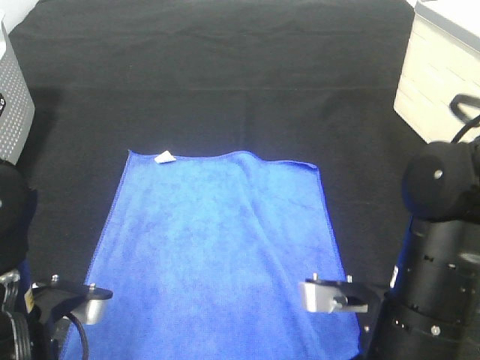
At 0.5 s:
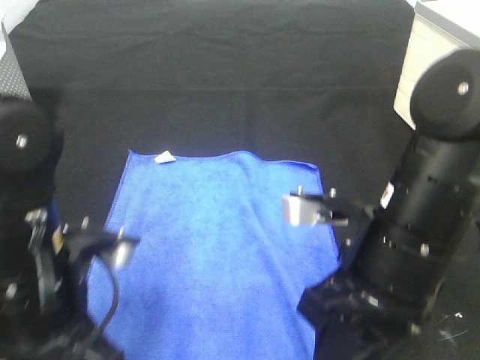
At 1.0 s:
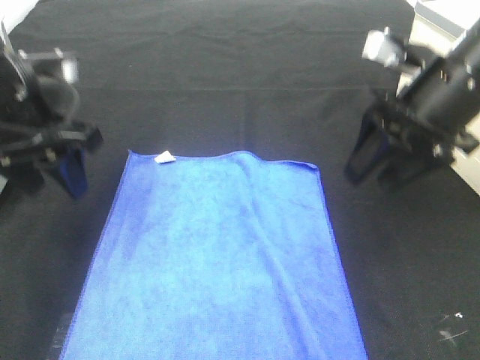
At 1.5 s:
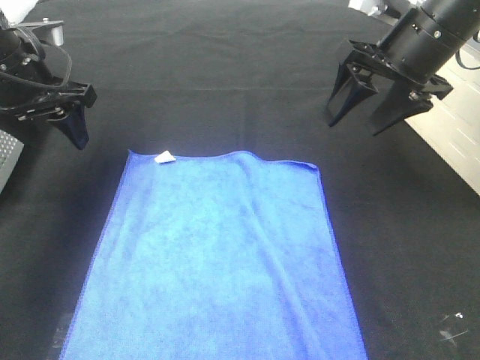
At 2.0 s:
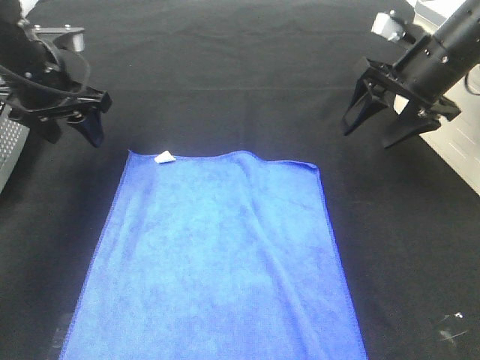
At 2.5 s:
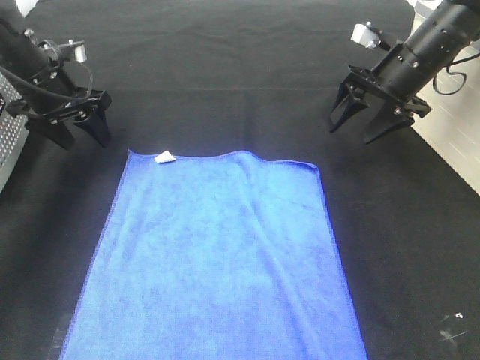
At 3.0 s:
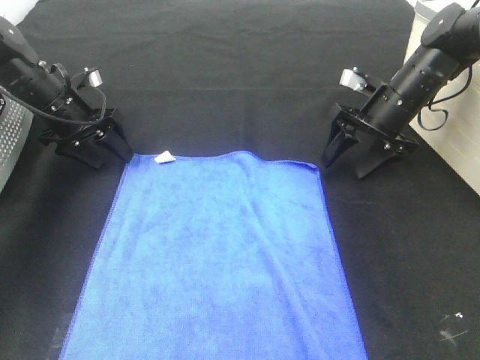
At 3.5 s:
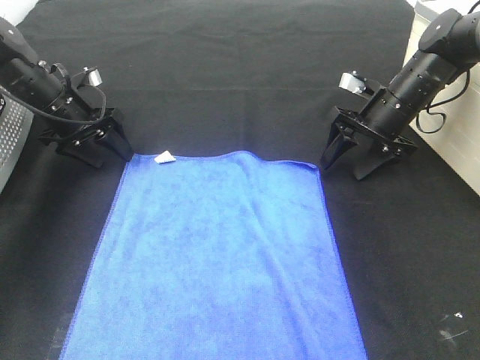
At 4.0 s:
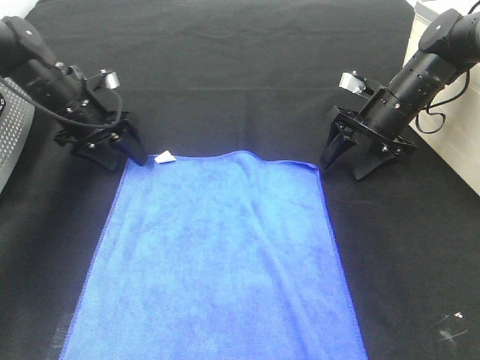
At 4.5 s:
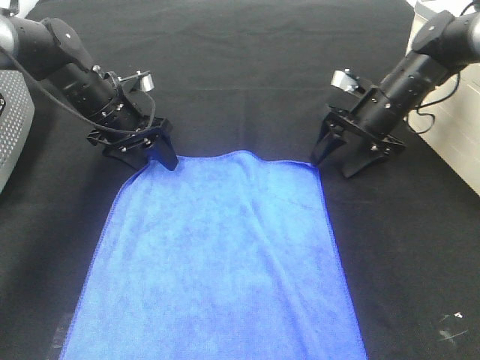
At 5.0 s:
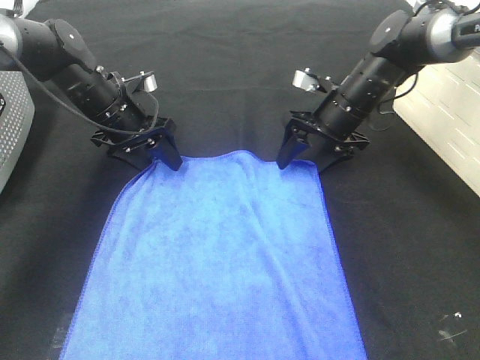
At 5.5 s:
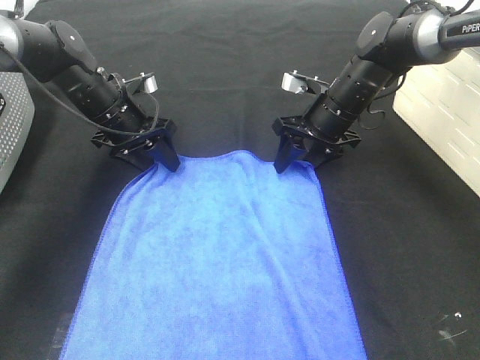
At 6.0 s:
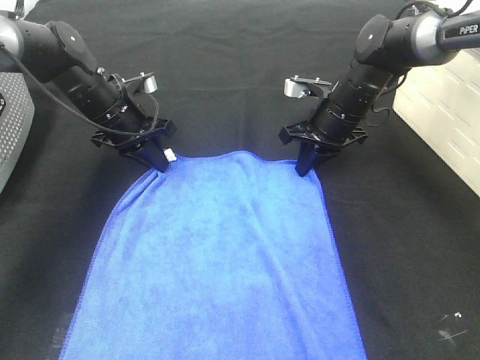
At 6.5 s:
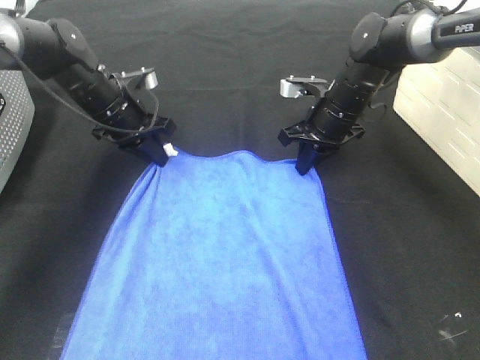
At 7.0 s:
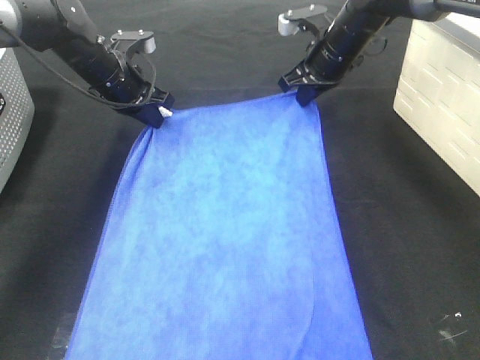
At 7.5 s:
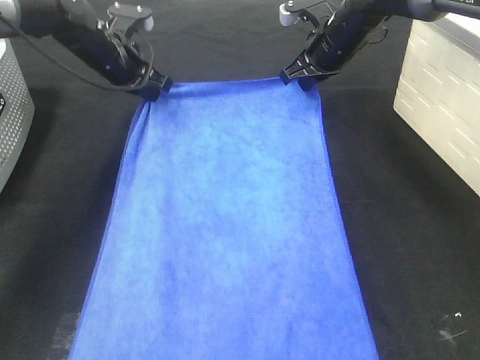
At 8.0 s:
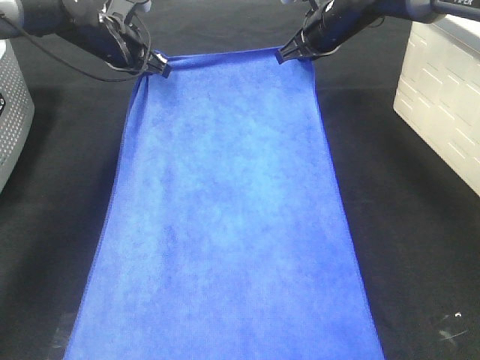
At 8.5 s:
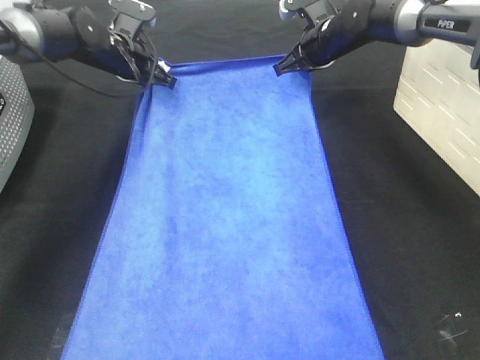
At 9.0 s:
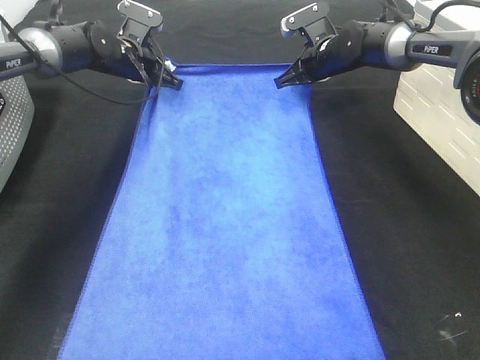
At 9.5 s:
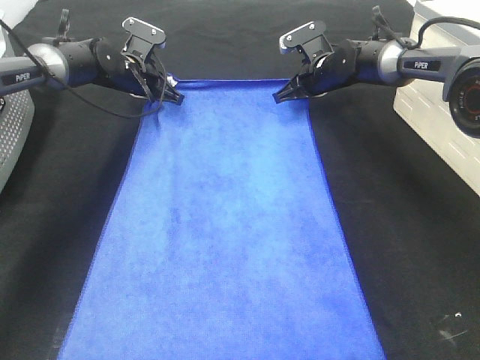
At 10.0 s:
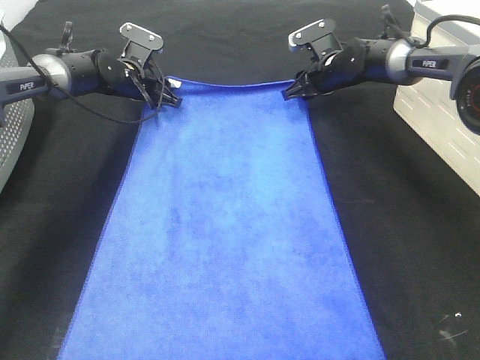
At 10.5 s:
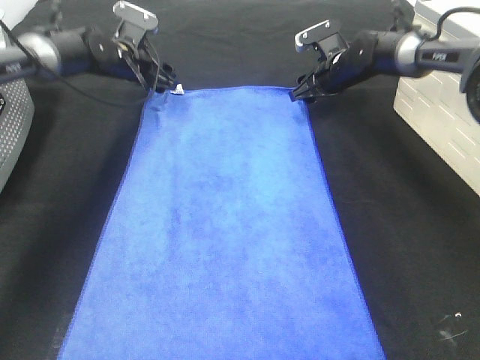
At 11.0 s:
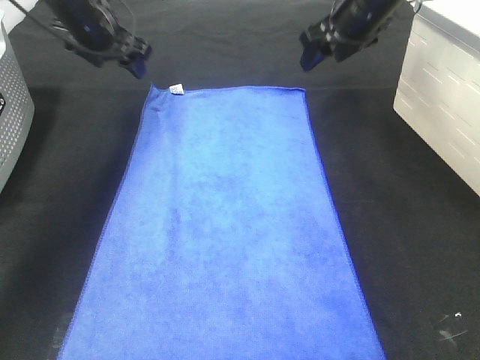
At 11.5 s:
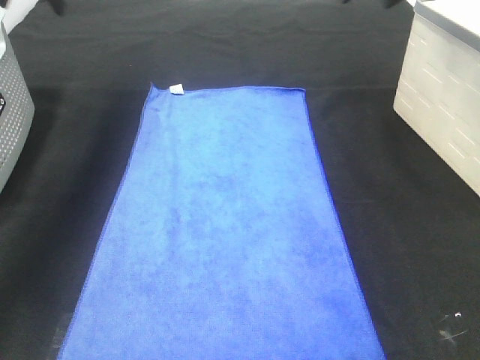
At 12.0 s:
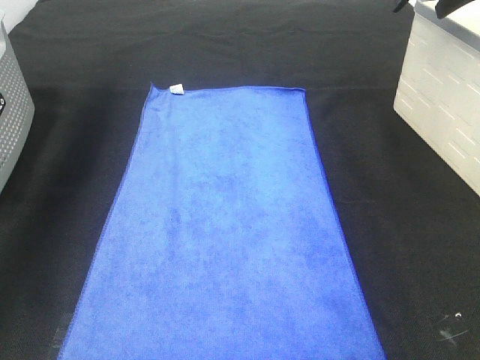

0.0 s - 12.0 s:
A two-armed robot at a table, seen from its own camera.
Task of the whole recording: Remove the towel and place it.
Step, 0.0 s - 2.5 s: Left hand:adjust the blue towel.
Step, 0.0 s - 2.5 s: Right hand:adjust the blue towel.
0.0 s - 2.0 s: The two grippers go about 25 cm forward.
2.0 s - 4.0 s: The grippers both shift downward and forward by some 10 cm.
4.0 s - 6.0 s: The left gripper heads to the right, covering some 5 cm, and closes up. The right gripper shifts about 10 cm to the left, and closes its fingers.
6.0 s - 8.0 s: The left gripper is displaced forward and upward by approximately 10 cm; the right gripper shifts some 15 cm upward and forward.
8.0 s - 10.0 s: Both grippers travel together downward, roughly 10 cm. The right gripper opens, while the left gripper opens its fingers.
10.0 s - 12.0 s: The right gripper heads upward and backward, covering roughly 25 cm. Meanwhile the left gripper goes approximately 30 cm upward and to the left.

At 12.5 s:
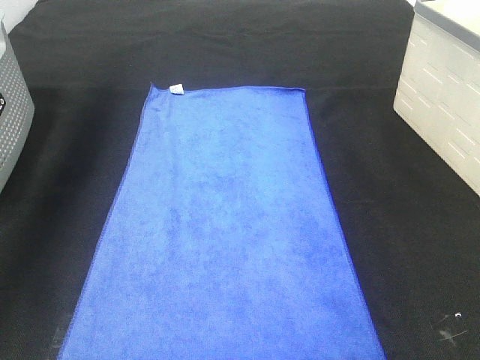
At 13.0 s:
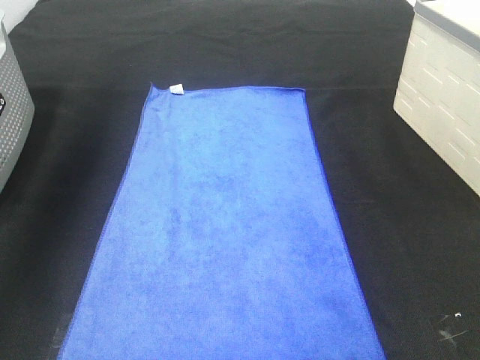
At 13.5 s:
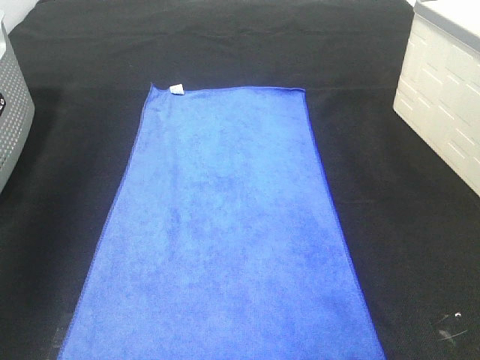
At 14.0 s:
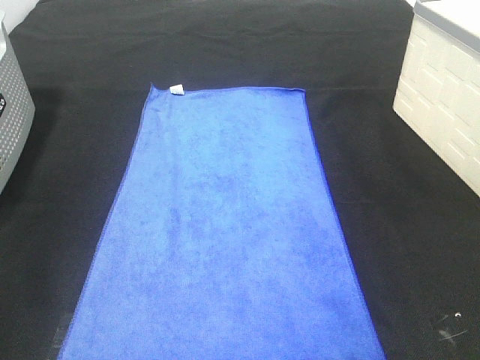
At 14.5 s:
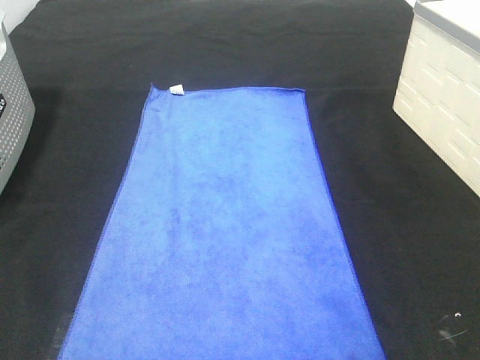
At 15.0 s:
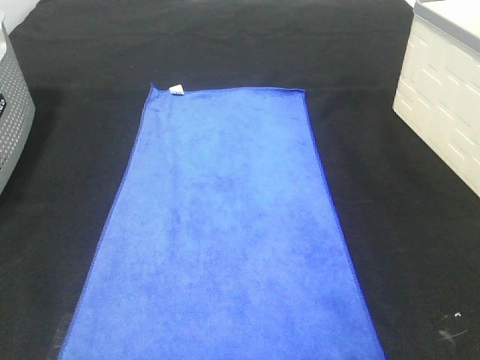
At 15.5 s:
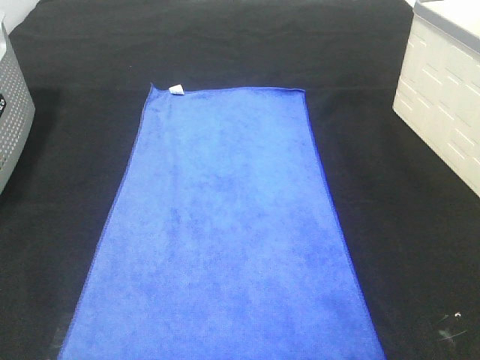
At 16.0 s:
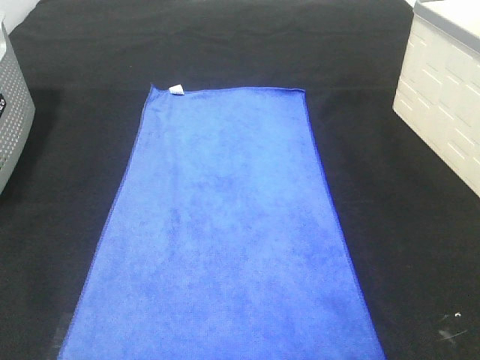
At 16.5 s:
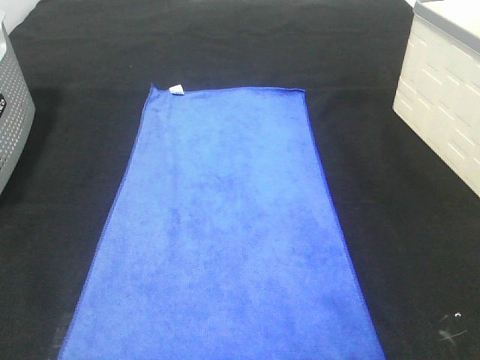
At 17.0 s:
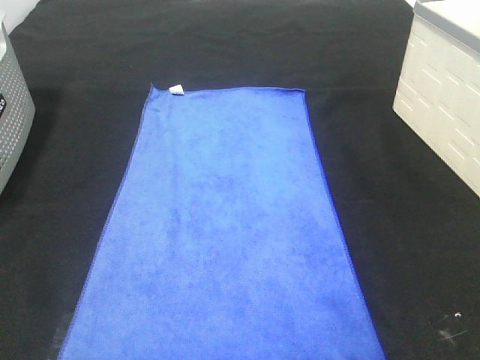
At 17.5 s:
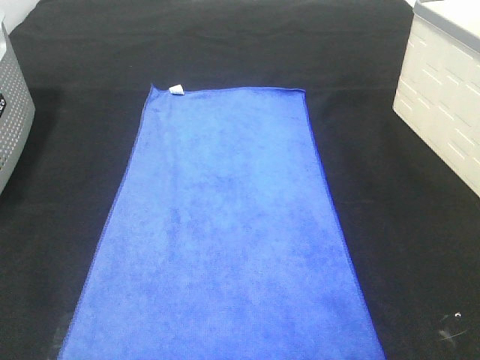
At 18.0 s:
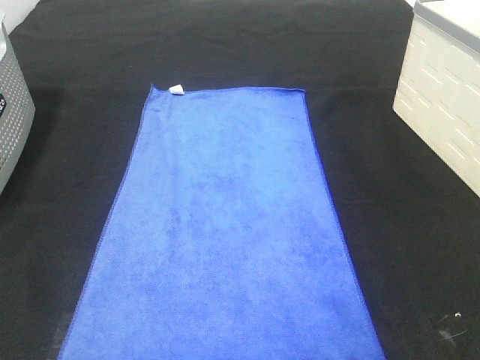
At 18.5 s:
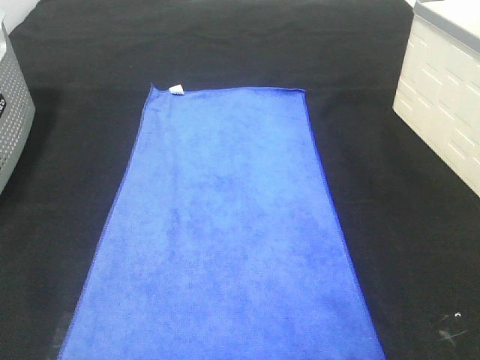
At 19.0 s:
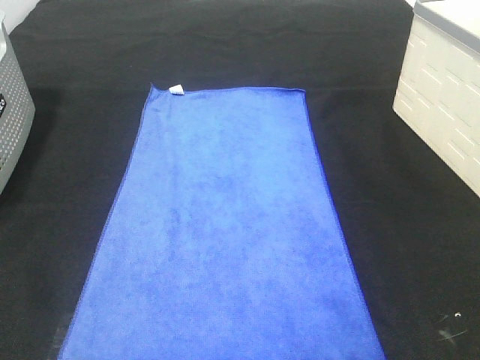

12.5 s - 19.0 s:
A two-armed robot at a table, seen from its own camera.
Task of the whole recording: Remove the towel and place it.
12.5 s - 14.5 s: The two grippers go some 50 cm backward.
17.0 s - 19.0 s: Both grippers stay put.
